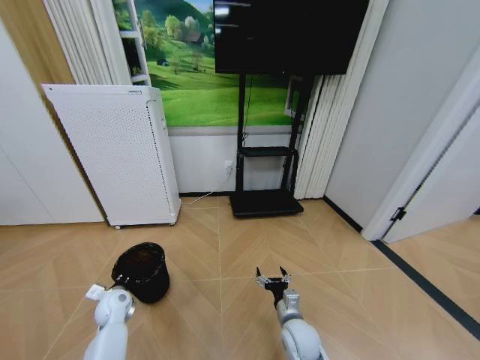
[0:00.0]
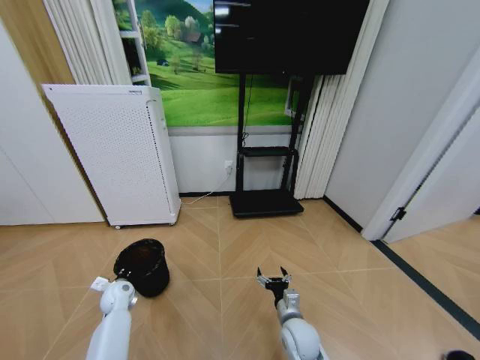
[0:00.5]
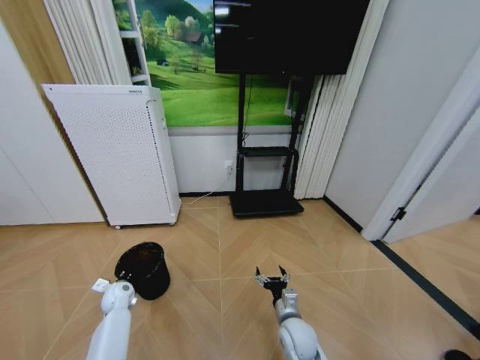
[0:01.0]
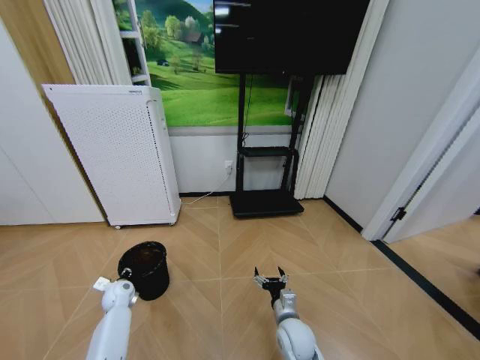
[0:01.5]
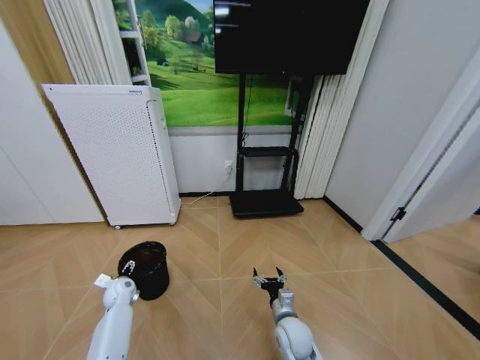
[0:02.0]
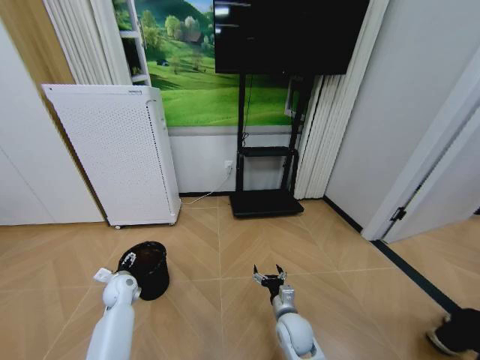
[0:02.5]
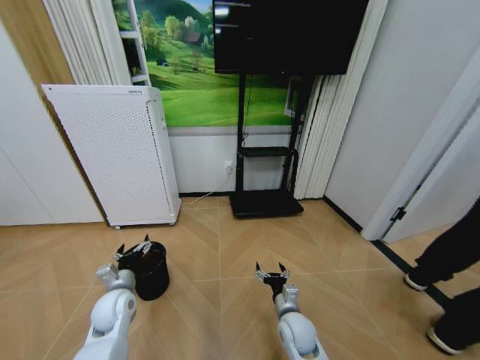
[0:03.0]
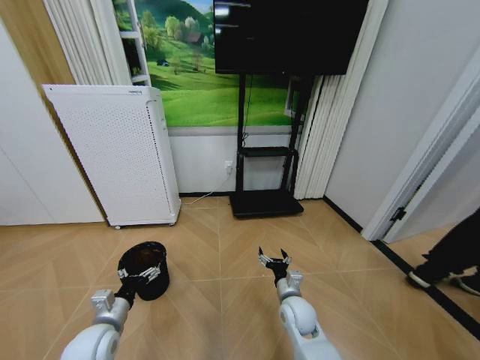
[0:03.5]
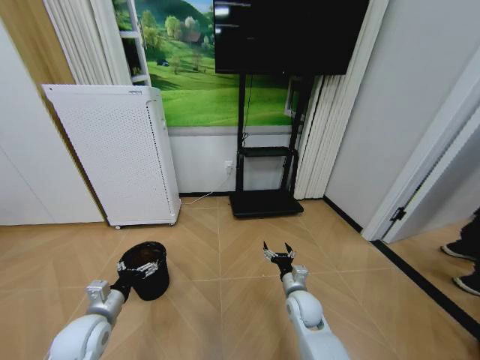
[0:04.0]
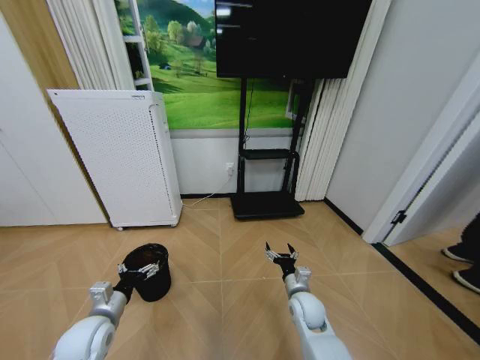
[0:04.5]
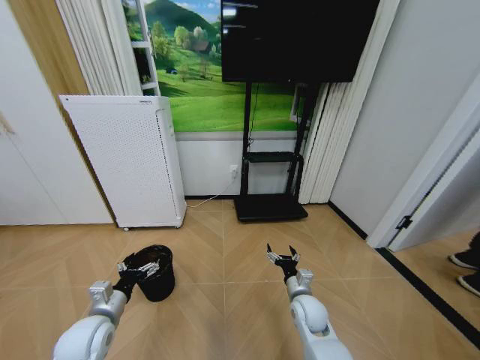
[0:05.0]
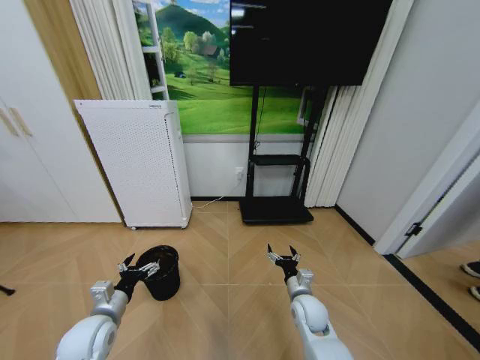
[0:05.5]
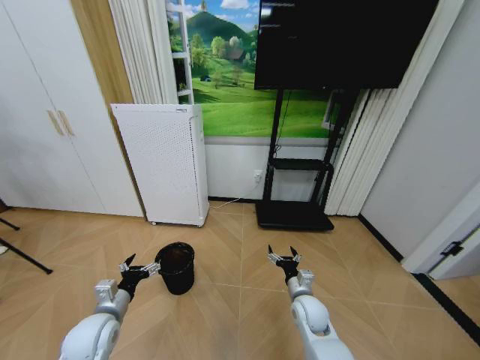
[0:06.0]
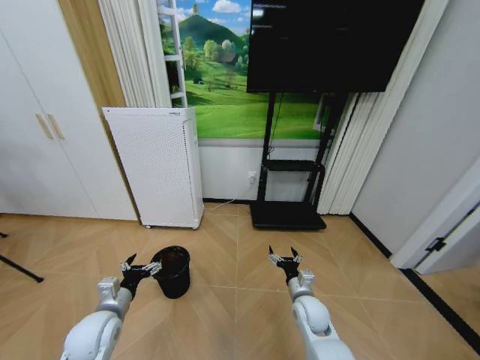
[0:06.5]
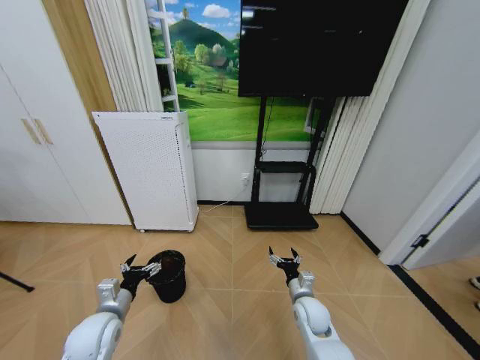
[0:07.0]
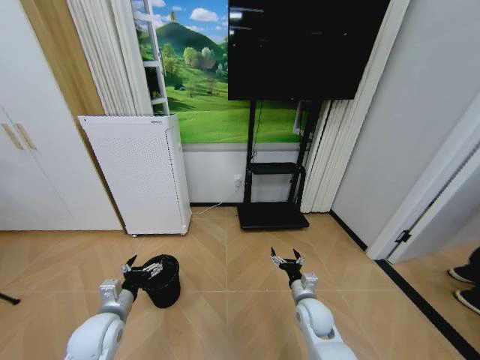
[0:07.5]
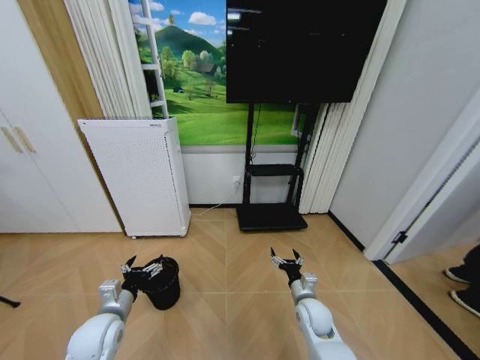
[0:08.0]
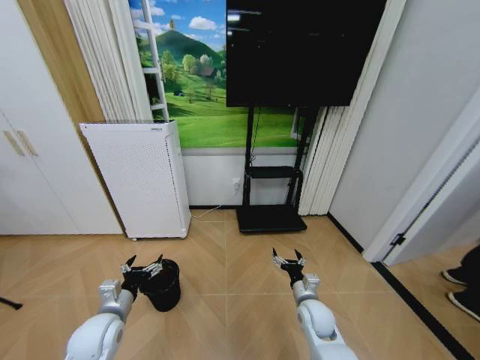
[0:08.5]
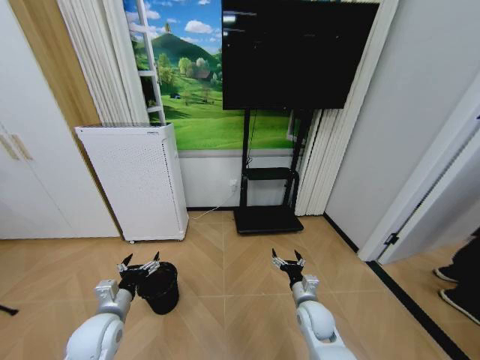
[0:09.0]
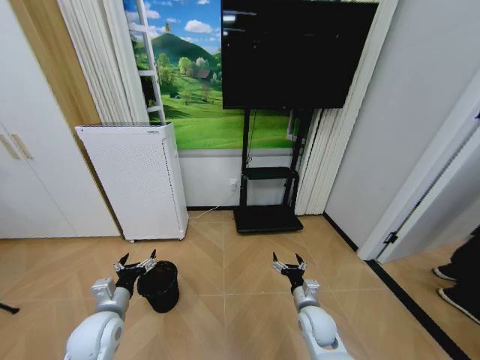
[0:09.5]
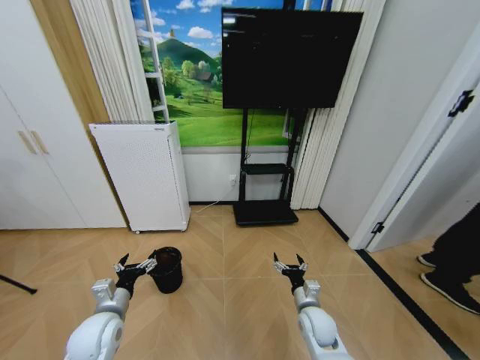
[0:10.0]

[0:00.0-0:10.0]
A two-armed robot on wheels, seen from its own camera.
Task of the whole recording: Pick up the trash bin and place the garbage on the floor into it.
0:00.0 to 0:02.0: The left gripper travels forward by approximately 5 cm, and opens up.
0:02.0 to 0:04.0: The right gripper moves forward, approximately 5 cm. Meanwhile the left gripper is displaced backward and upward by some 20 cm.

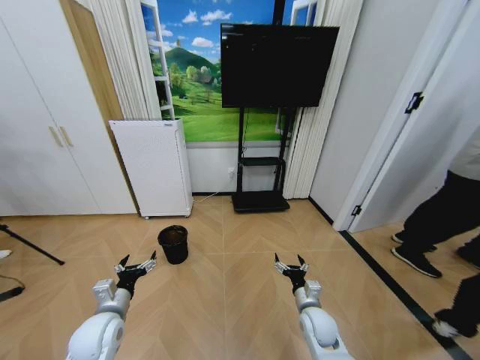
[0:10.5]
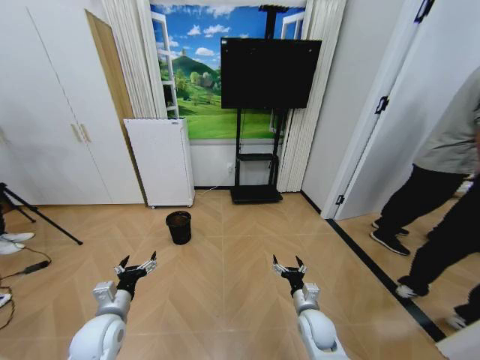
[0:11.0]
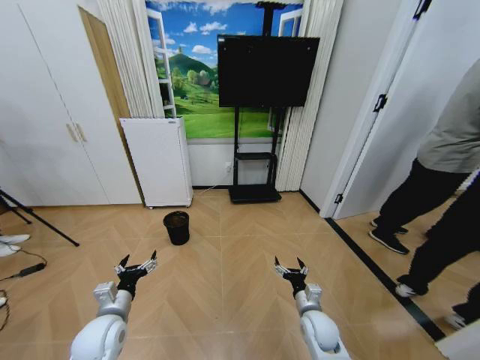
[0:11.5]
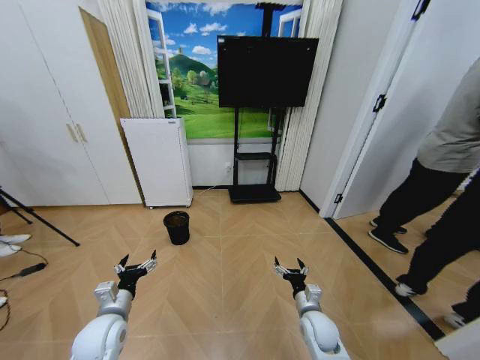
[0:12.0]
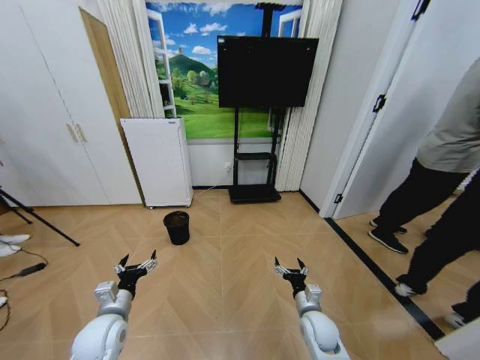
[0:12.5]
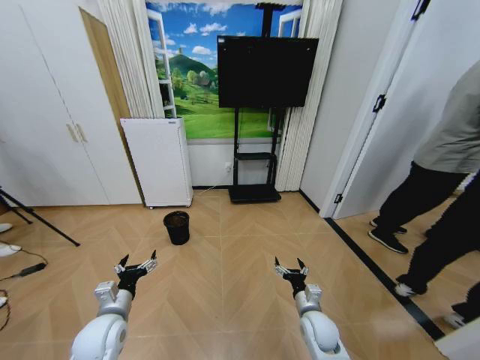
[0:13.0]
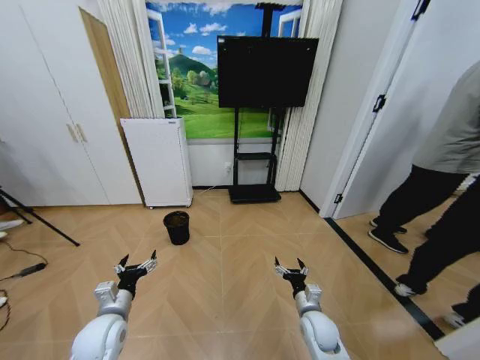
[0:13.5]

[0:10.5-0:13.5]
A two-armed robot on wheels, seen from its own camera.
Task of the whole recording: Pick up the trash bin and place the garbage on the floor into it.
0:12.0 to 0:13.5: The two grippers keep their place.
